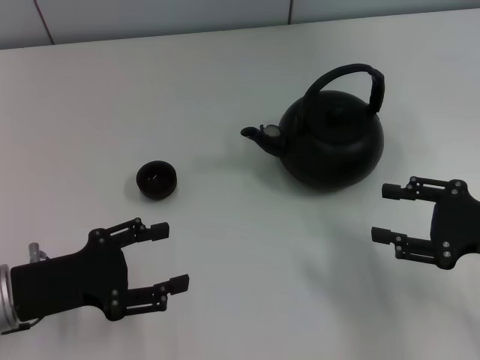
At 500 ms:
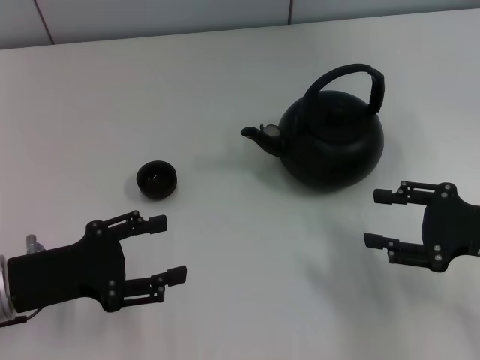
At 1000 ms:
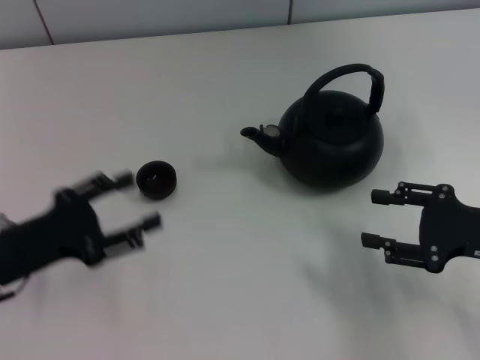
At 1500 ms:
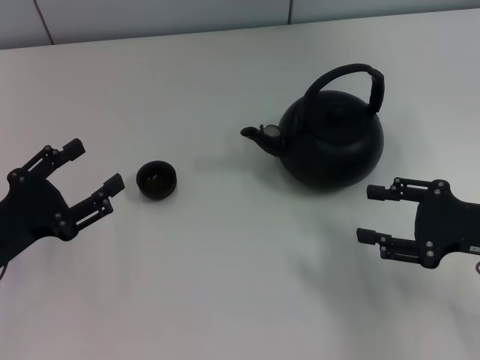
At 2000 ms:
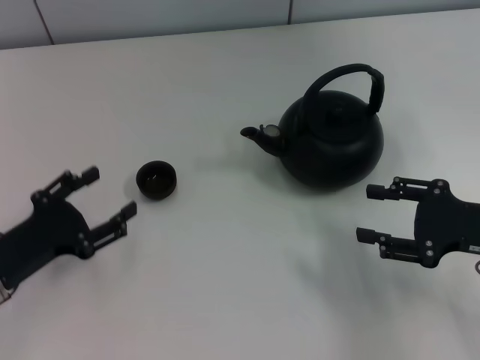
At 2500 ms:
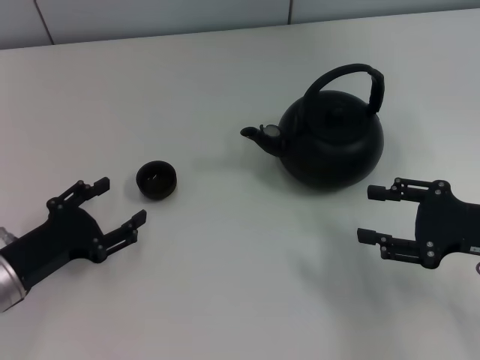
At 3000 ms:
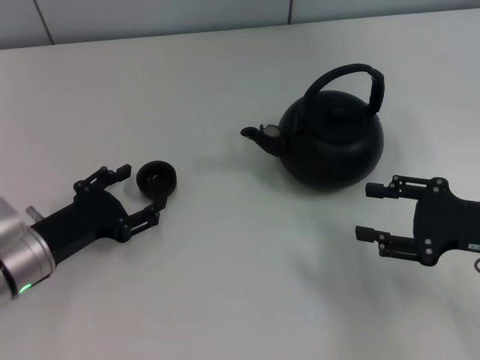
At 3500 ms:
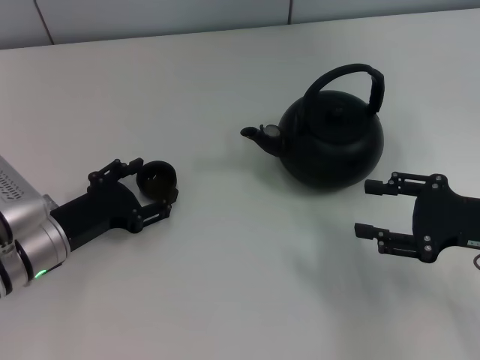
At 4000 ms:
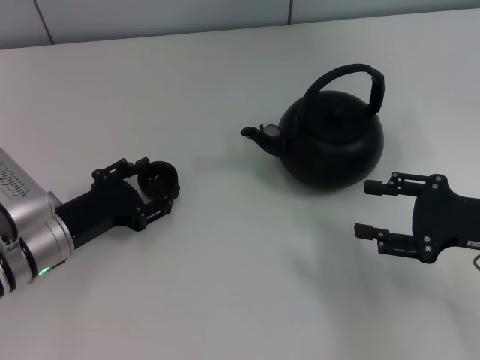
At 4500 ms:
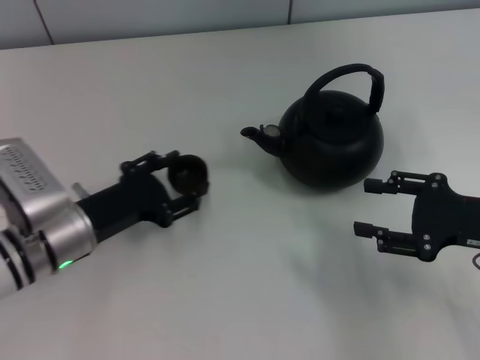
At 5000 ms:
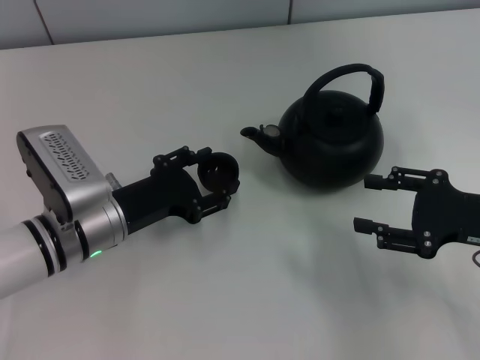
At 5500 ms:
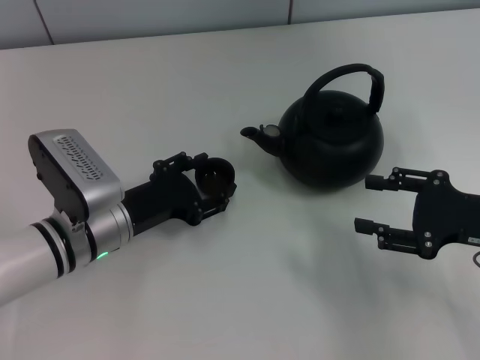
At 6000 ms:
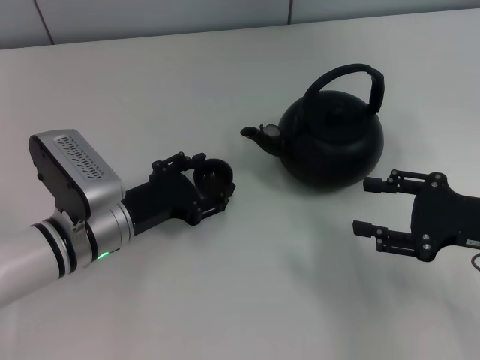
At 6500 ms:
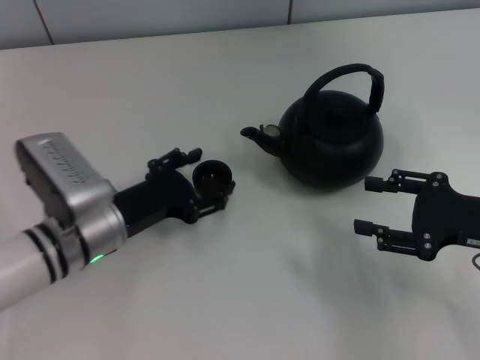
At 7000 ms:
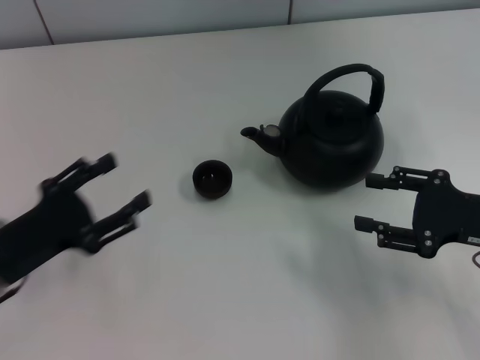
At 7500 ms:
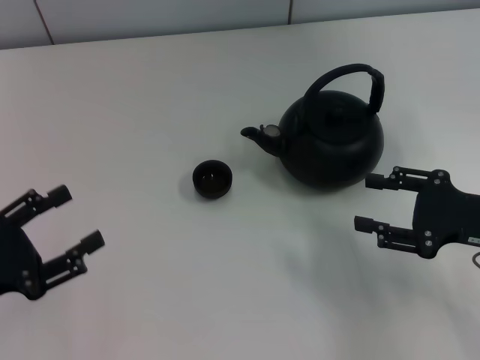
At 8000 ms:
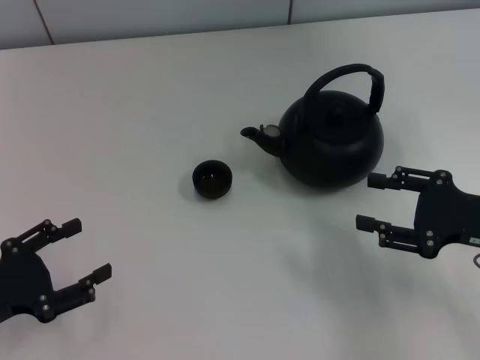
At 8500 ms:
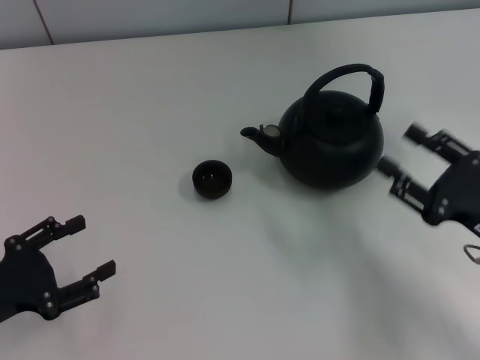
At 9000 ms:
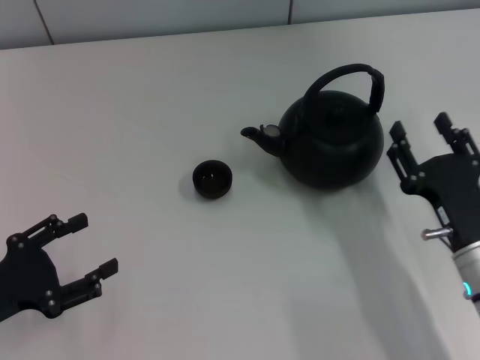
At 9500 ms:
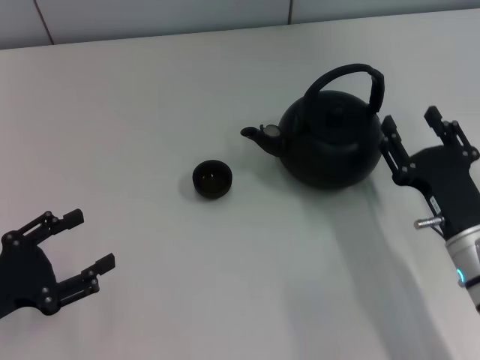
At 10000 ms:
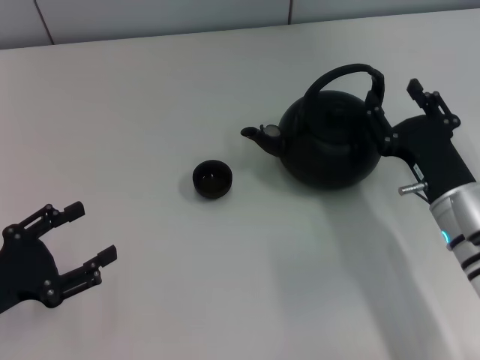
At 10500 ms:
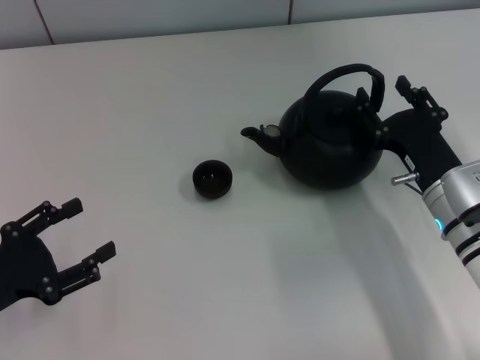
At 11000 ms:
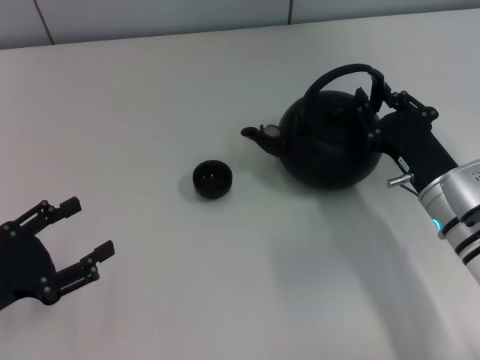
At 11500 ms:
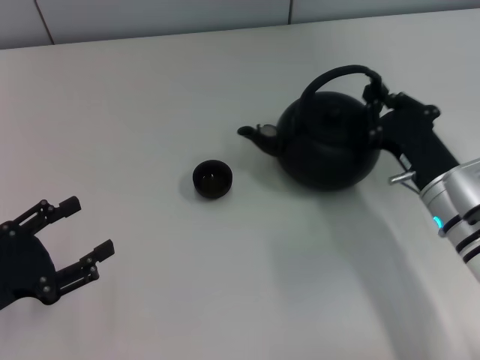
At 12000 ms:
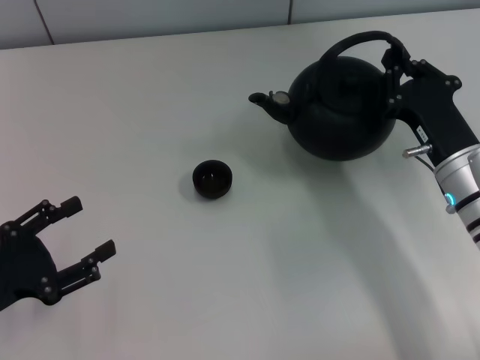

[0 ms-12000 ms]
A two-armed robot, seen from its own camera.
Task of the whole recording: Grasp the handle of the teapot with one hand and pour tea into the teacup.
Step, 0 ms to 4500 ms: Pick up the teacup with the left gripper.
Step, 5000 ms to 6500 ms: Place the teacup in the center of view with the left gripper.
Step, 7000 ms to 11500 ms: Pick up the teapot with the right gripper.
2000 ms to 4000 ms: The left gripper travels to the right and forward by about 5 cm.
4000 ms to 6000 ms: The left gripper is displaced to the right by about 5 cm.
6000 ms to 8000 ms: The left gripper heads to the left and backward, covering some 20 cm, and opens up.
8000 ms to 10000 ms: The right gripper moves to the left, some 10 cm.
10000 ms to 12000 ms: The right gripper closes its fingers.

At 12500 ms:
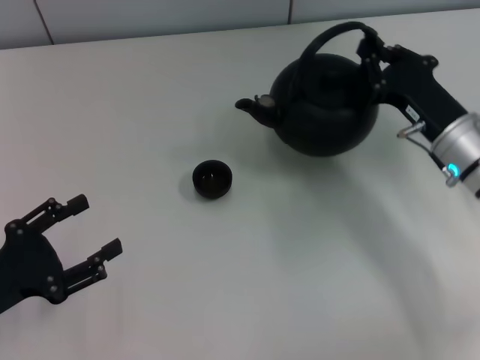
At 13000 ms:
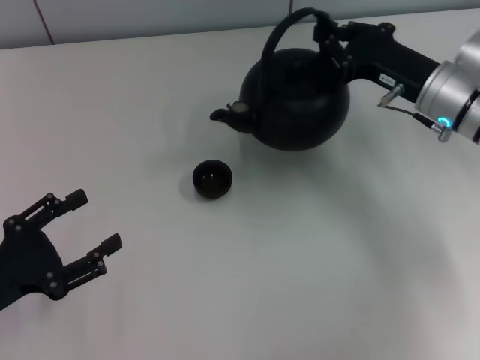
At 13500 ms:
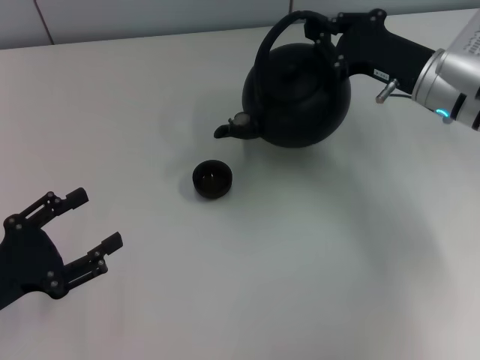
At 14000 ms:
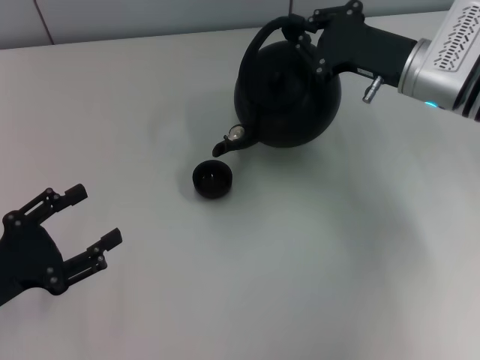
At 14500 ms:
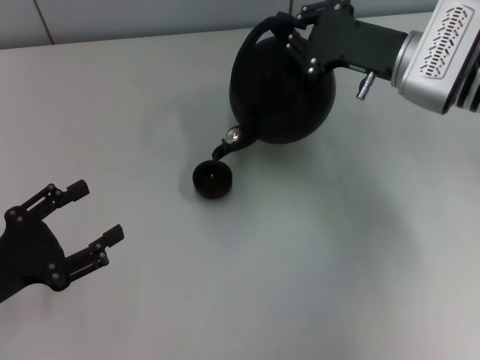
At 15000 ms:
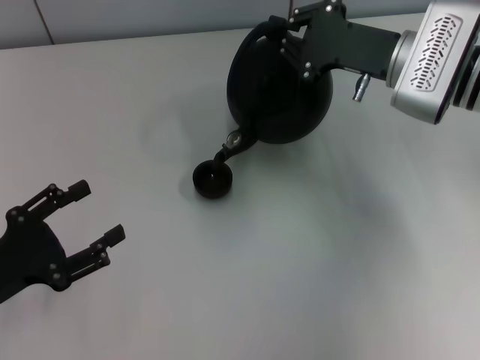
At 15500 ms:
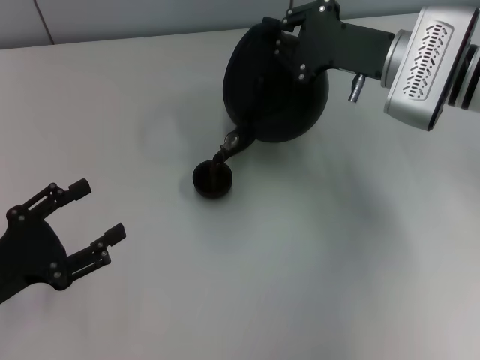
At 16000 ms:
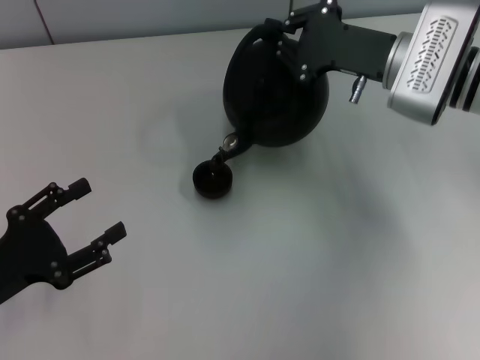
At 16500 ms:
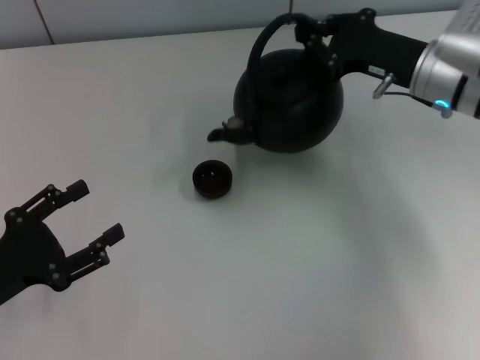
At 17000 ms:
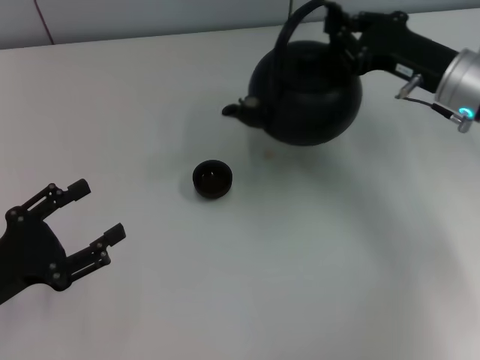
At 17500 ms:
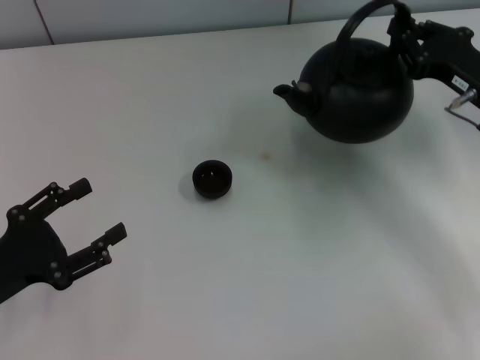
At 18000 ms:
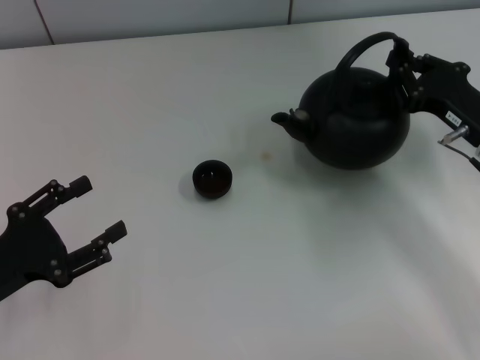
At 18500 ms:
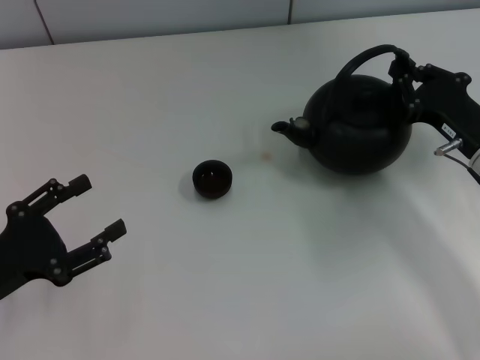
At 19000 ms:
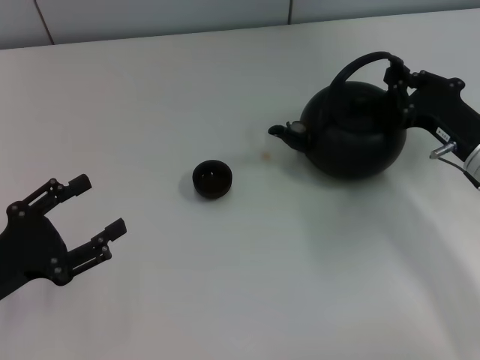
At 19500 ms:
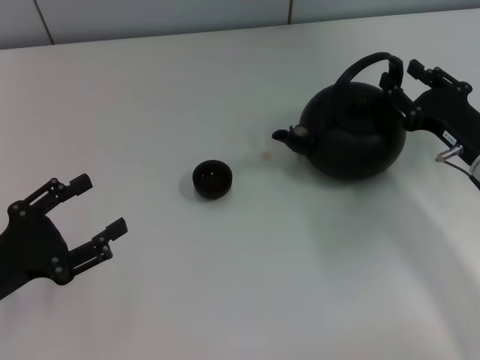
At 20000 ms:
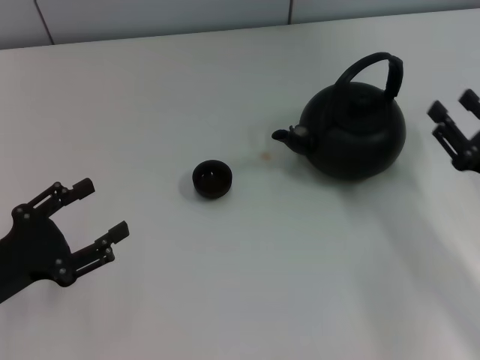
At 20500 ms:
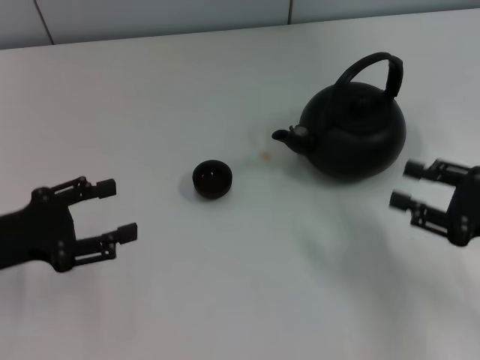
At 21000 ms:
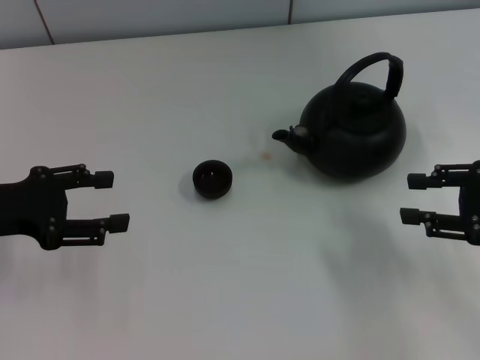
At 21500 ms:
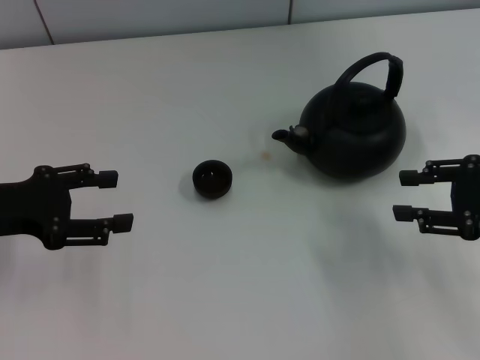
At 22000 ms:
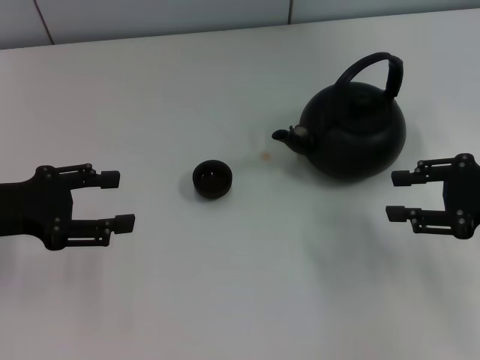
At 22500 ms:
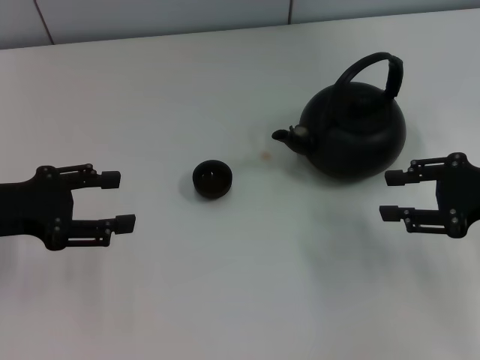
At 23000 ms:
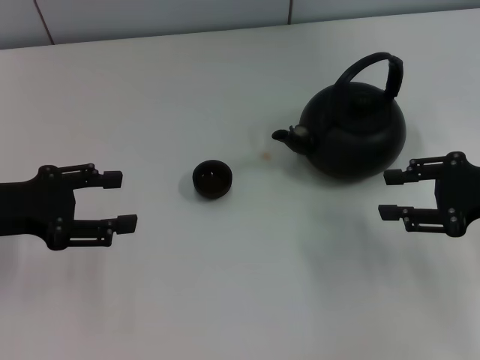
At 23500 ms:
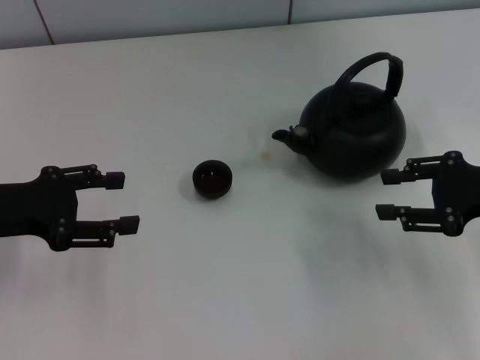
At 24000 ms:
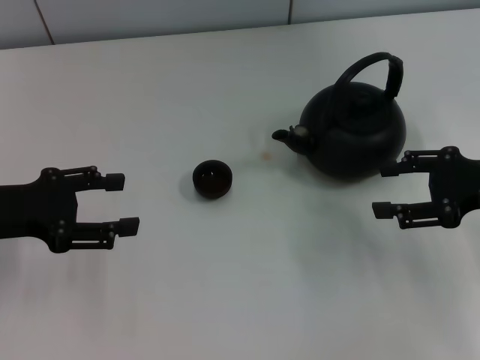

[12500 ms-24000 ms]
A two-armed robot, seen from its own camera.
Task of the whole recording: Grasp the handle of the teapot with one hand and pour tea into the teacup.
Step, 17000 ms to 20000 ms: Put down the teapot with the right gripper.
12500 ms to 14500 ms: The right gripper goes approximately 10 cm forward and upward.
16500 ms to 18500 ms: The right gripper heads backward and downward, covering about 10 cm.
18500 ms to 20000 ms: The right gripper goes roughly 10 cm backward, and opens its fingers.
20000 ms to 22000 ms: The right gripper moves upward, about 10 cm. The left gripper heads forward and upward, covering some 10 cm.
22000 ms to 24000 ms: The grippers stay close to where they were, moving slightly.
